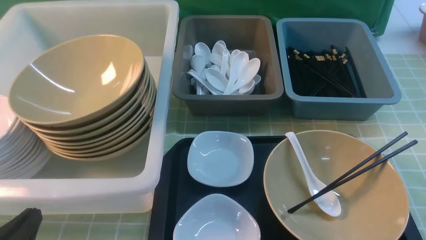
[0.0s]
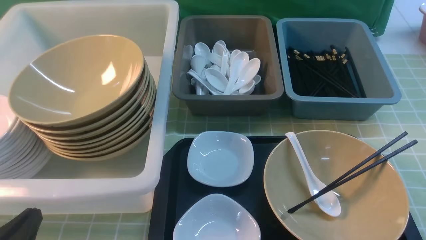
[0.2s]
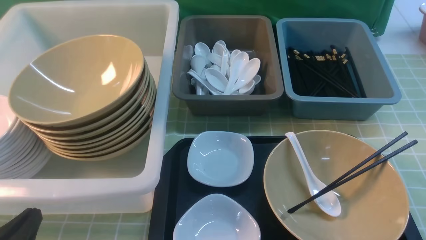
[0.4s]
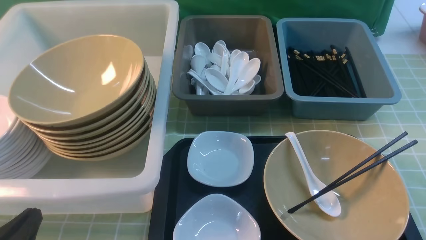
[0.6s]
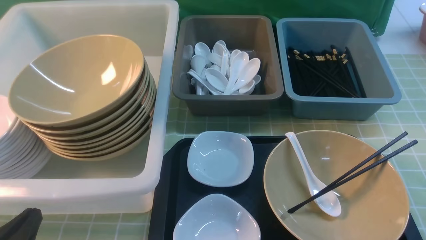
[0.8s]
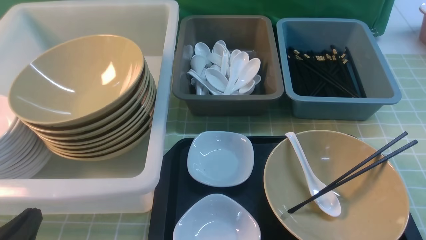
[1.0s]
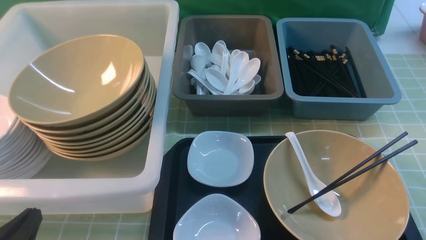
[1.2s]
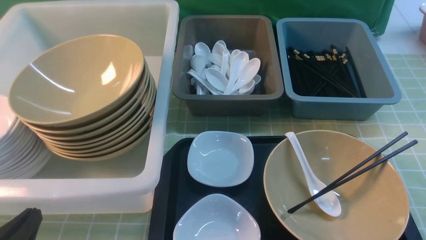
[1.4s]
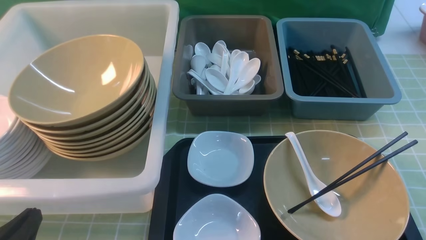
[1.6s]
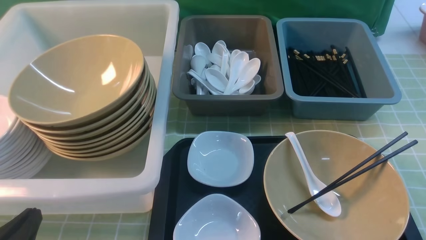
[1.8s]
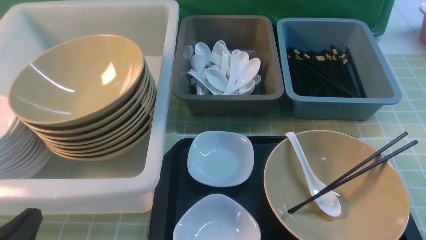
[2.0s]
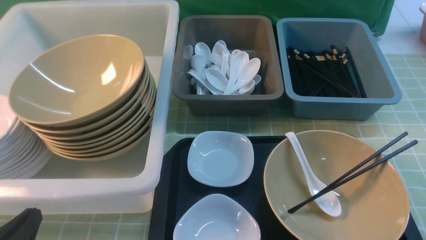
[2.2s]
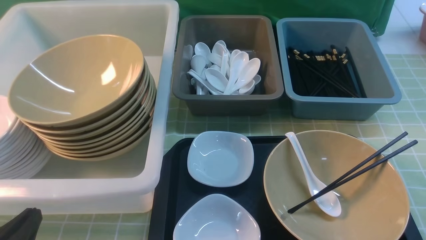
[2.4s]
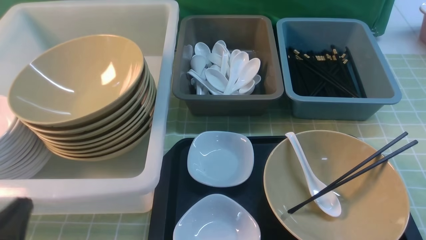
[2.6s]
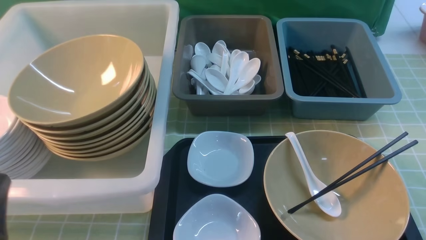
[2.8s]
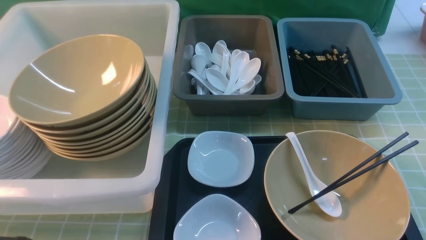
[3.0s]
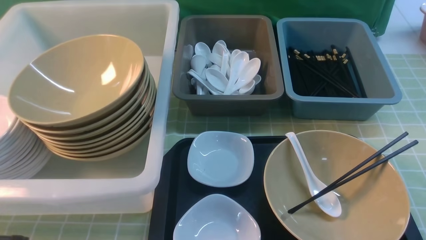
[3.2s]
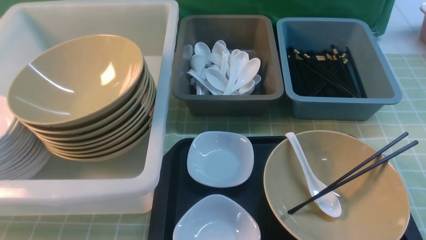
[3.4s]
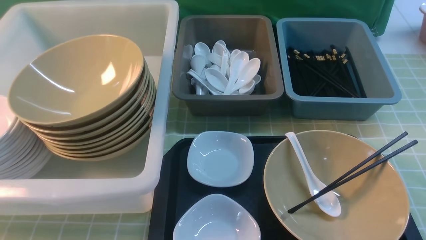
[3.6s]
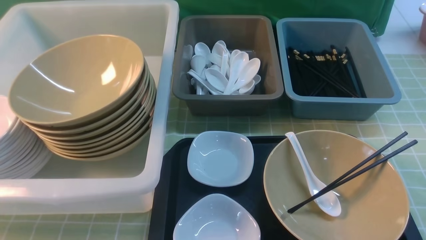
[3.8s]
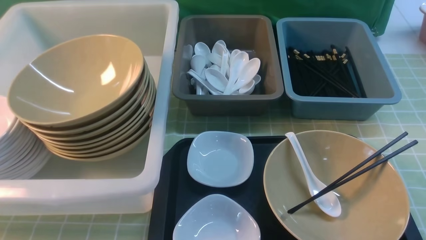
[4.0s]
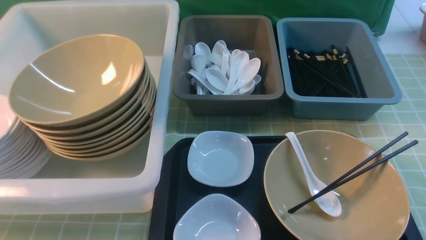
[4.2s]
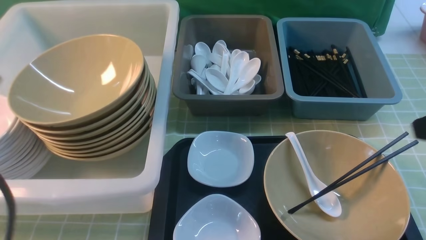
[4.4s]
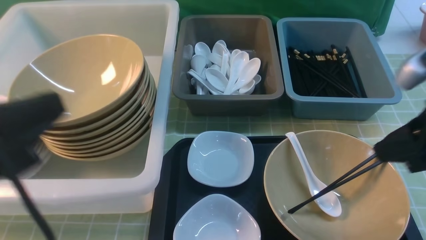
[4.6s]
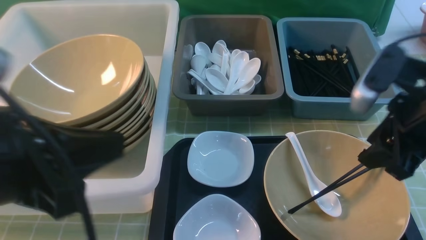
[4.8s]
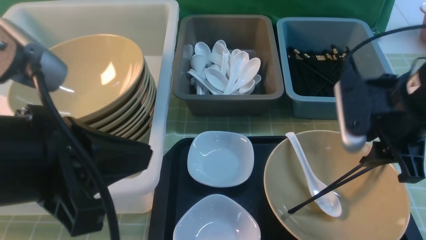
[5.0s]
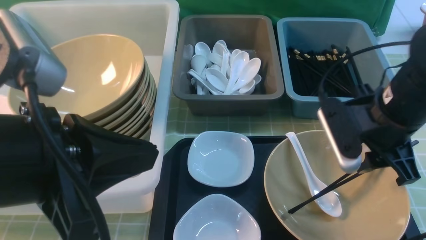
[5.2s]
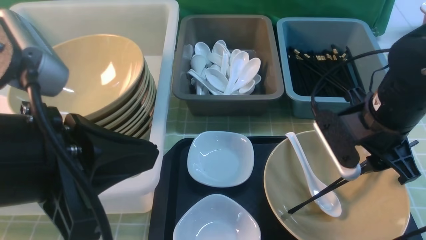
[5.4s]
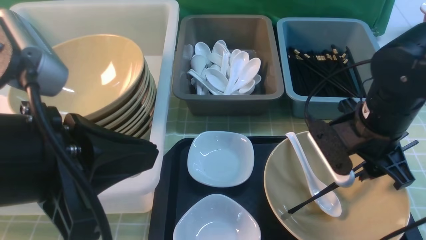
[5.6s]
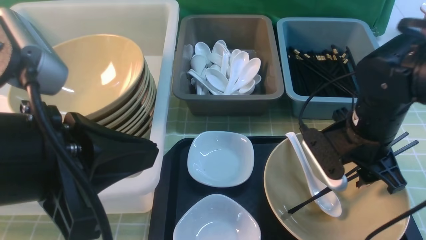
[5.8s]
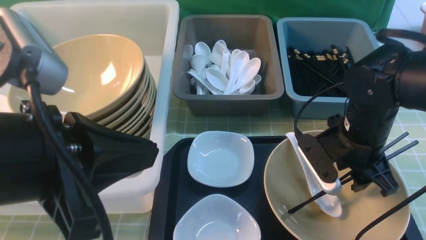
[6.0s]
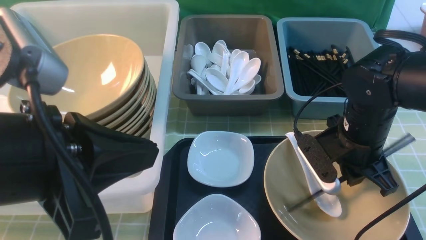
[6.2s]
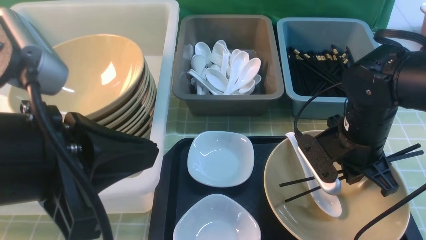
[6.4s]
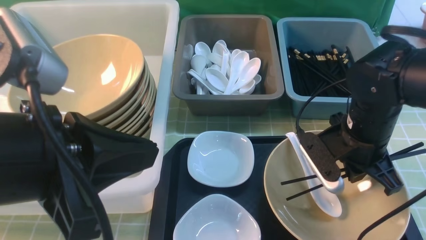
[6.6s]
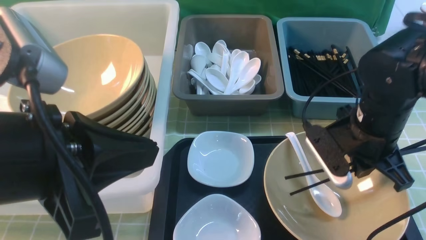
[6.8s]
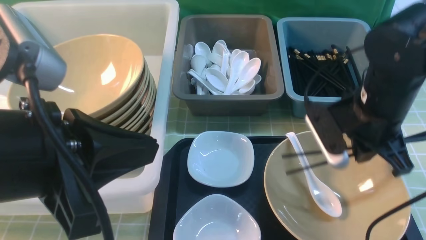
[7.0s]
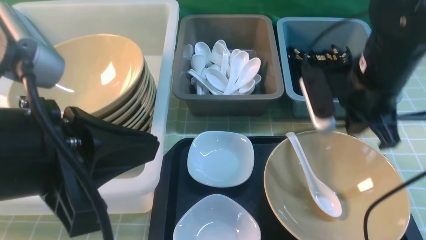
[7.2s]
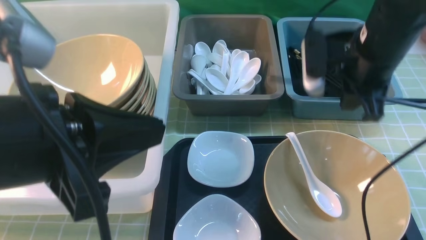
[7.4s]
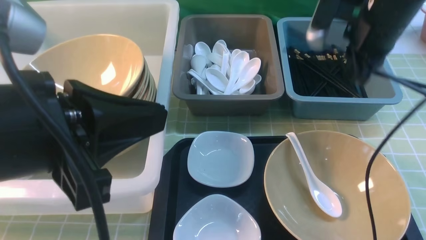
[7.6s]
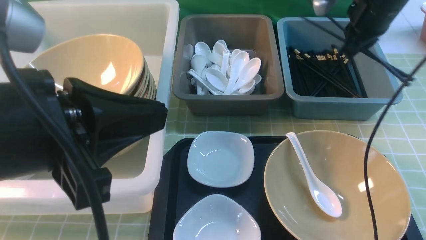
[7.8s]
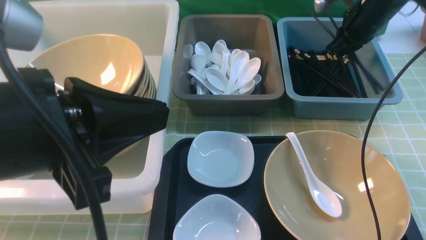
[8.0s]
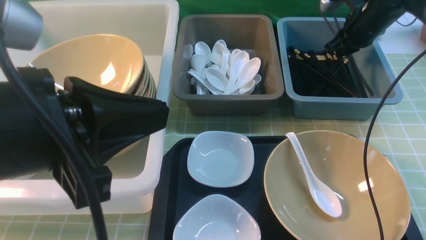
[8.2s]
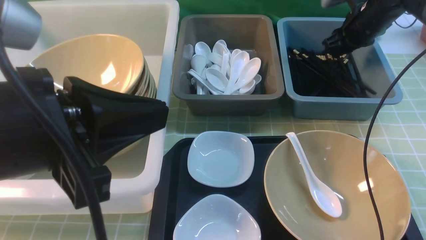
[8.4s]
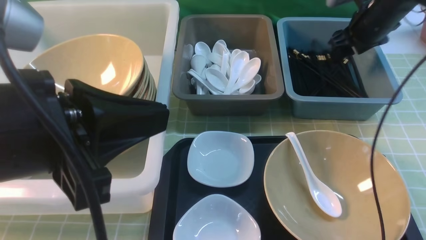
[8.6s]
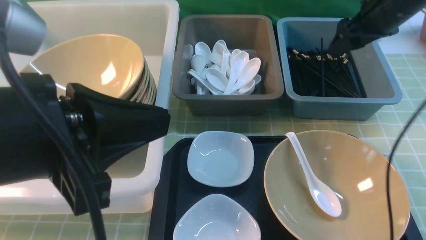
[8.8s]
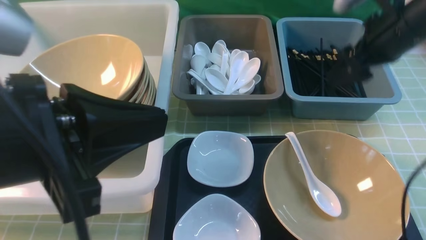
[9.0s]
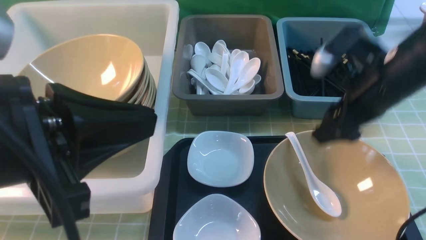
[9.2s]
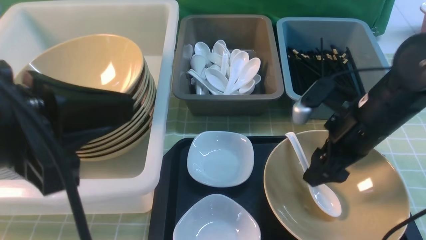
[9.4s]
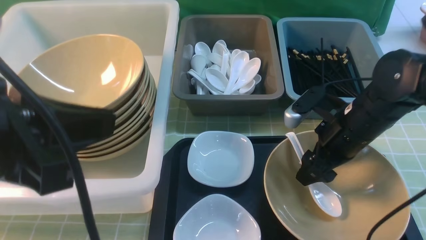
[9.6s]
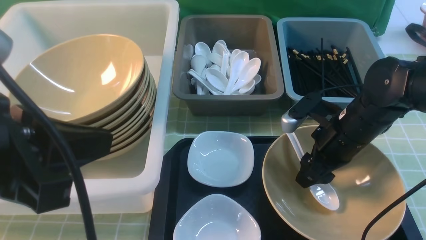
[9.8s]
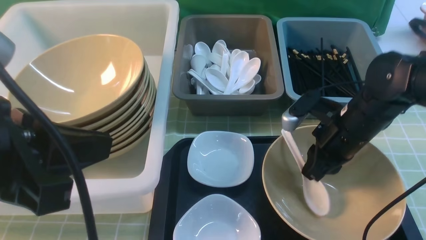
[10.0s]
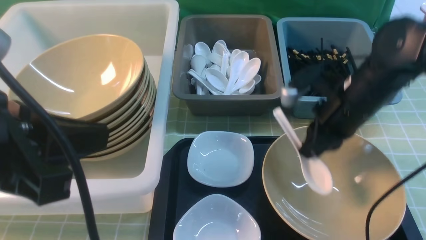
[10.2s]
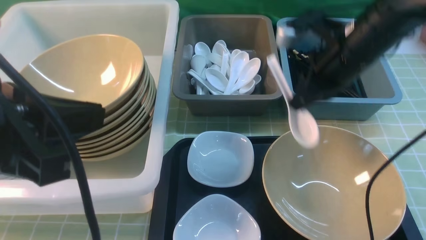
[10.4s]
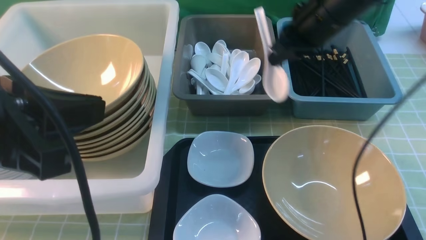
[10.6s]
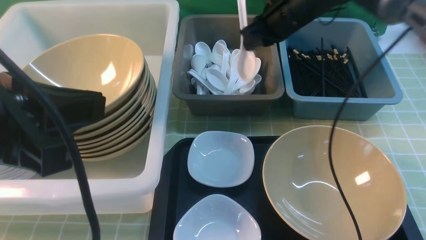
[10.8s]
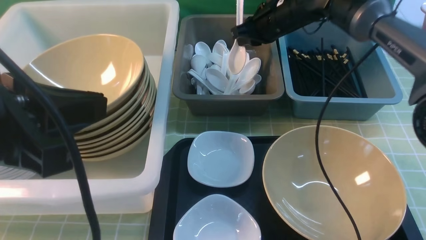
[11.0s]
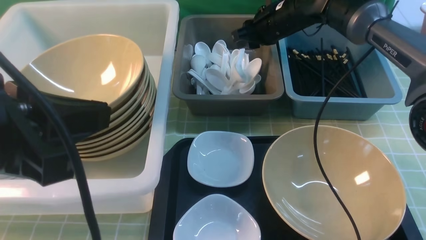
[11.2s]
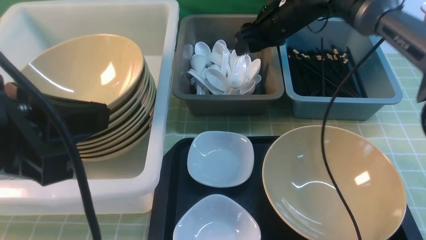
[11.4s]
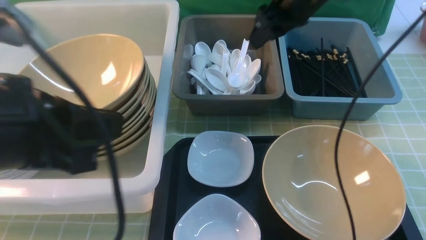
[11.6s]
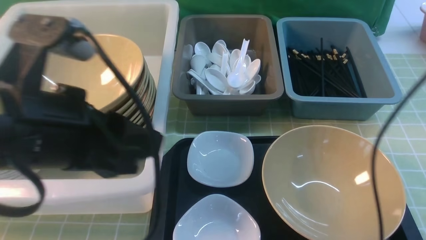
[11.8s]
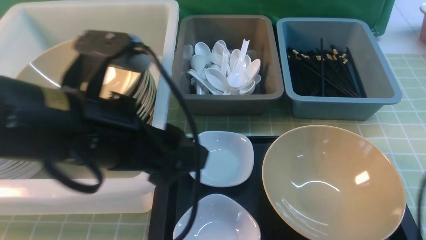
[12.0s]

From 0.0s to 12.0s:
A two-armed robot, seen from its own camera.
Task of the whole recording: on green table put chopsticks spoon bowls plates into blue grey white boxes.
Step, from 0.0s to 6.8s: use the right arm to grab the chopsticks.
Step, from 7.0s to 9.0s: use the right arm to put the chopsticks into the small storage box on the right.
Step, from 9.2s to 10.2s: use the right arm to grab the soup spoon in the middle.
Step, from 10.4s to 11.2s: use the right arm to put the soup spoon into the small storage box in the middle.
From 0.0s to 1.6s: Both grippers stay put.
From 4.4s to 6.0s: The right gripper shifts some 20 cm downward, forward and to the left. Meanwhile the left gripper heads to the right, covering approximately 5 cm.
From 6.0s to 7.6s: The right gripper shifts approximately 15 cm upward and forward, and closes its fingers.
From 7.6s to 9.0s: The right gripper goes forward and returns, roughly 10 cm each way, and opens its fingers.
From 9.0s to 10.4s: The right gripper moves to the left, about 5 cm, travels downward and back again, some 10 cm each way, and closes its fingers.
From 10.4s to 12.0s: The left gripper travels to the right, forward and downward by about 10 cm, and opens, while the right gripper heads upward and backward, covering roughly 20 cm, and opens up.

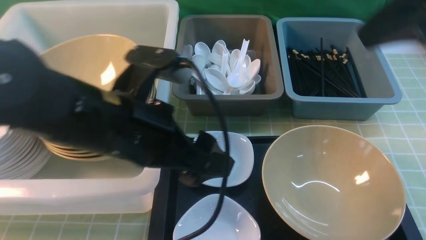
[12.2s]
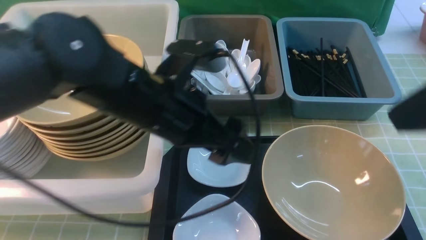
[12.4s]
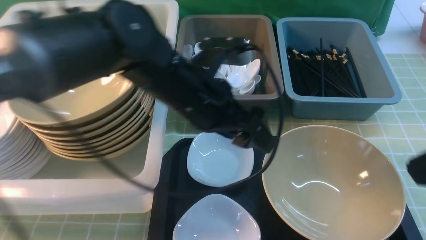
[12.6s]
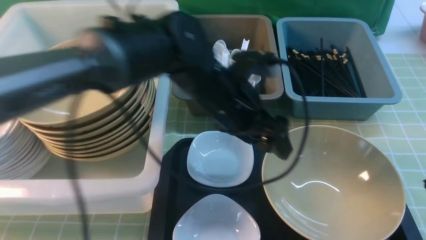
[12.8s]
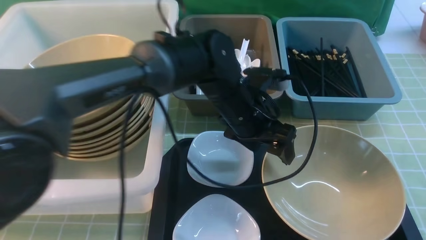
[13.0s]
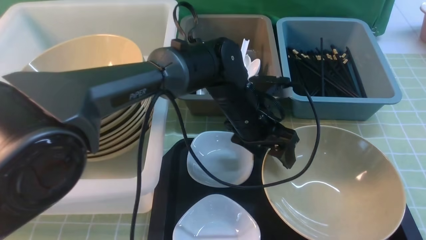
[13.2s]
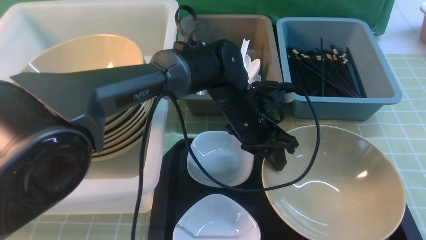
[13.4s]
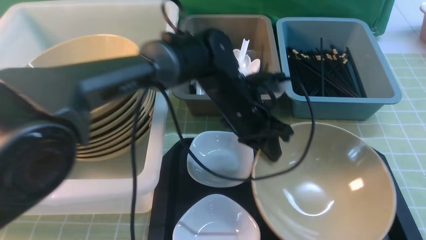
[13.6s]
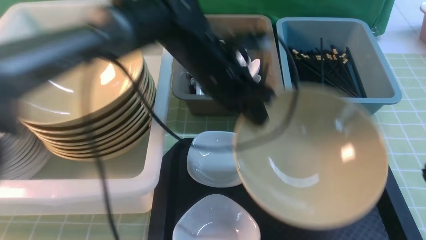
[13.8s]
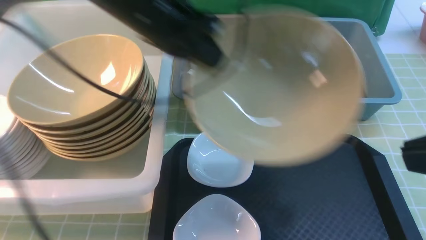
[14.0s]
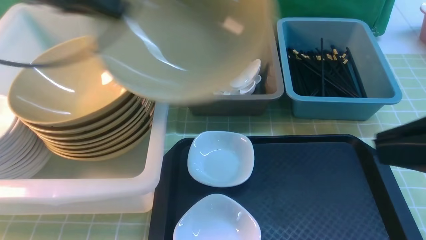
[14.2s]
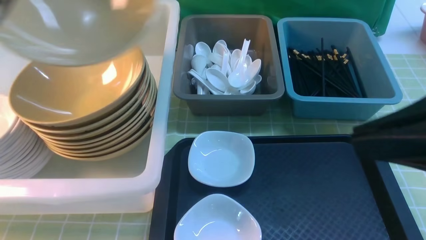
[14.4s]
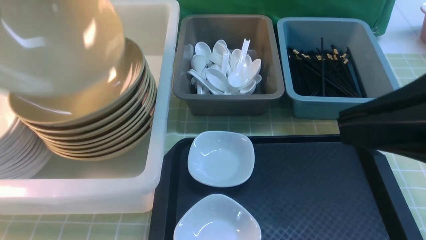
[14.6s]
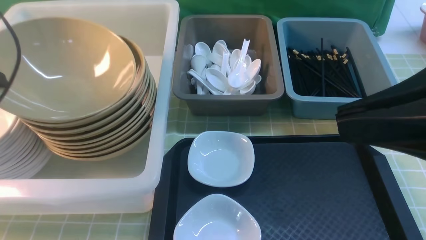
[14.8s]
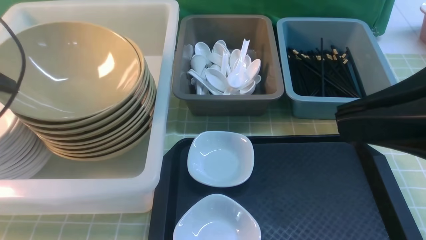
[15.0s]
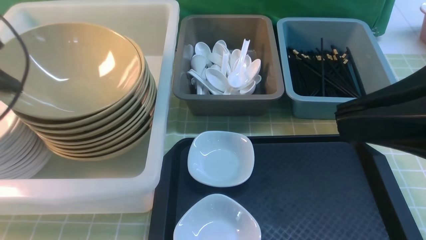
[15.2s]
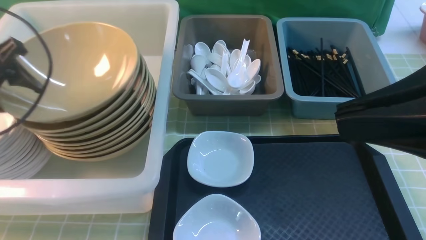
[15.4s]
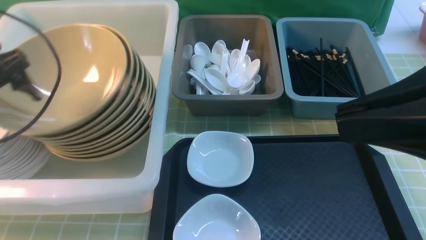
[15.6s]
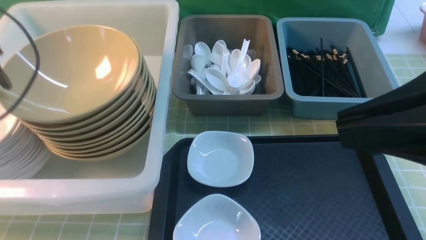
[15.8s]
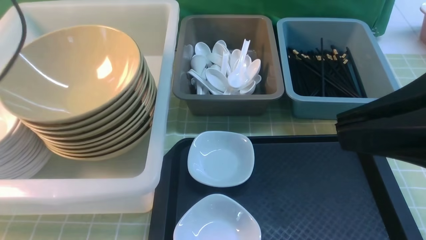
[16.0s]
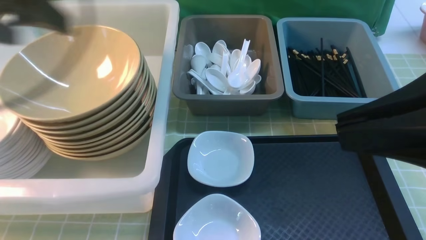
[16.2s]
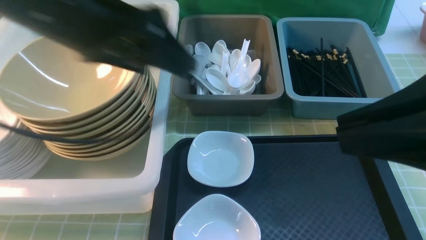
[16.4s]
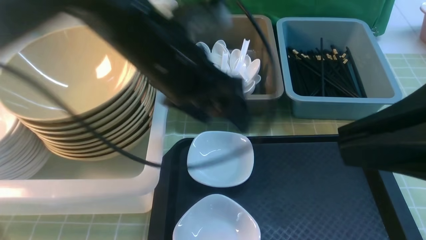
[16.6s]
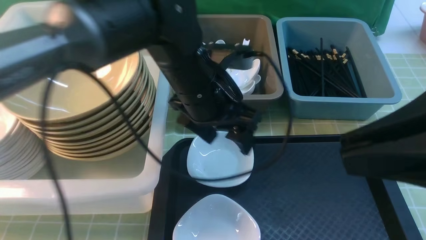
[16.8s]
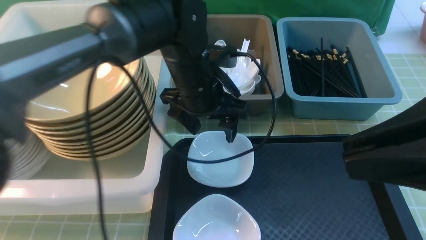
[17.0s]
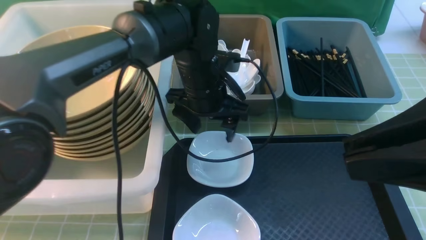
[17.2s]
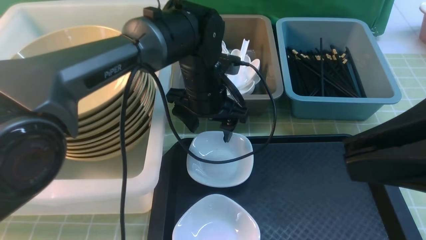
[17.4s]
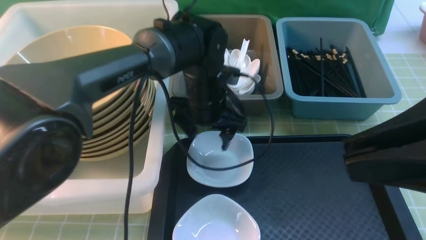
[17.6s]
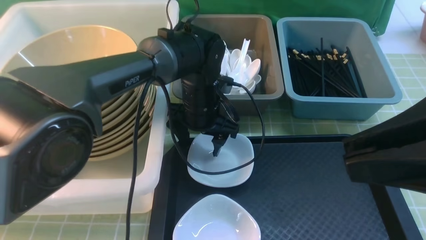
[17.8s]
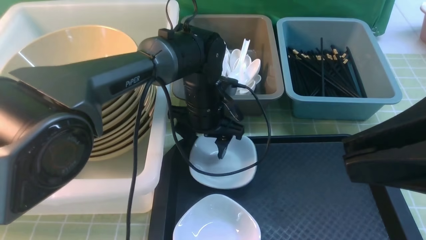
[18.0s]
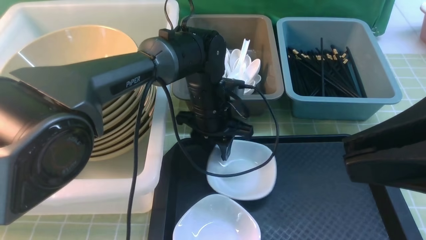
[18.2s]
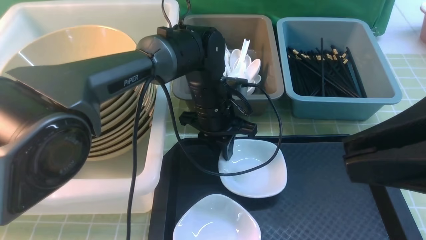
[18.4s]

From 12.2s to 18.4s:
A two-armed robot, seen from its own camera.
Task of the whole recording: on green table put chopsticks spoon bowls plates into blue grey white boxes.
Step, from 12.2s to 13.6s: use the left arm to grab the yellow noodle bowl on the left.
Step, from 13.8s to 16.0s: use the left arm to put the noodle bowl into the large storage box on the left.
From 12.2s to 13.8s: The left gripper heads forward, covering approximately 15 cm, and closes up; the right gripper is displaced backward and downward by some 15 cm.
From 13.8s to 15.4s: The right gripper moves some 5 cm, while the left gripper travels to the left by some 30 cm, and opens its fingers.
From 15.4s to 16.8s: The left gripper travels to the right by approximately 30 cm.
From 16.8s to 18.4s: The left gripper is displaced downward and forward by about 10 cm, and closes.
